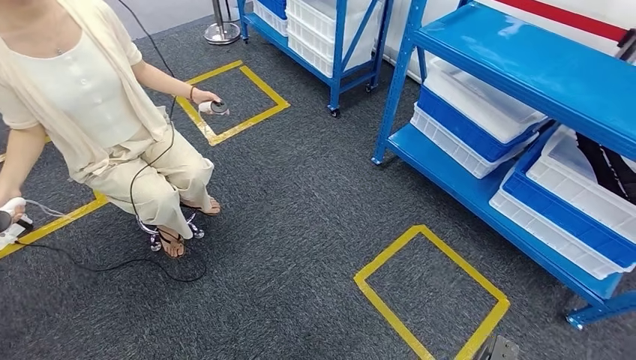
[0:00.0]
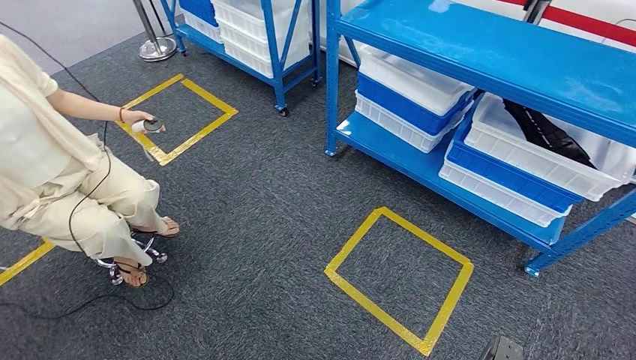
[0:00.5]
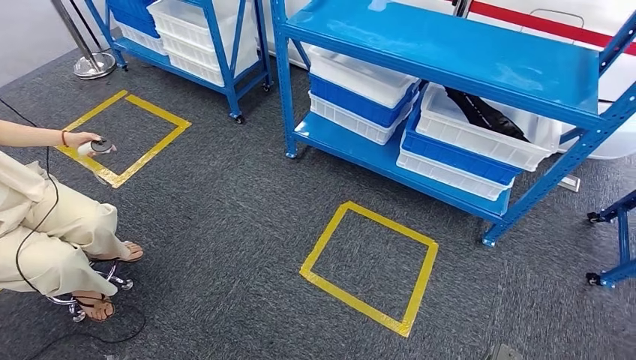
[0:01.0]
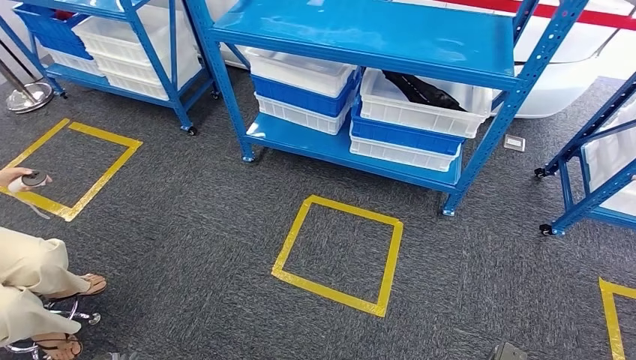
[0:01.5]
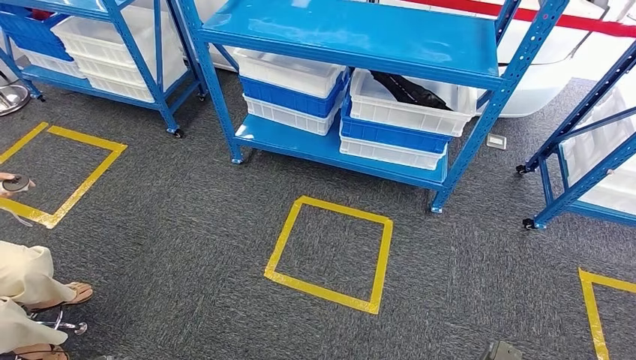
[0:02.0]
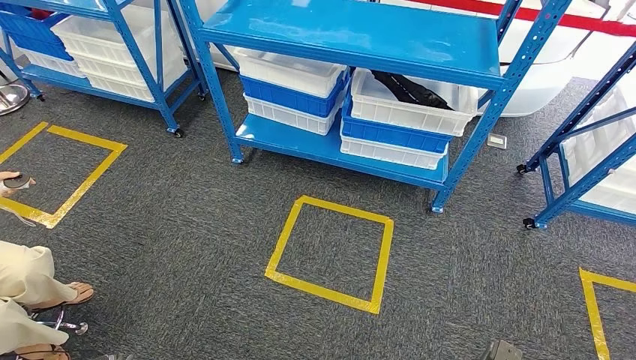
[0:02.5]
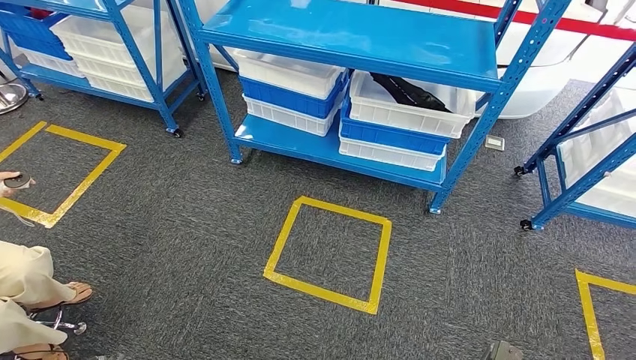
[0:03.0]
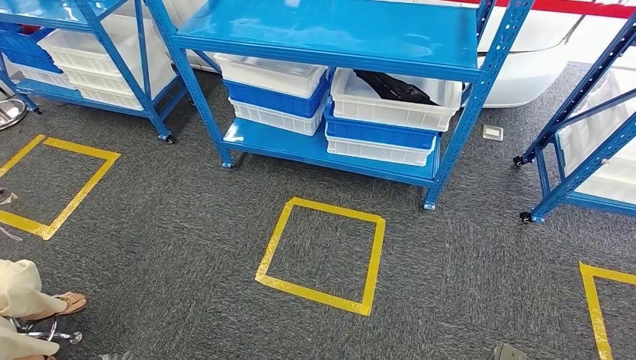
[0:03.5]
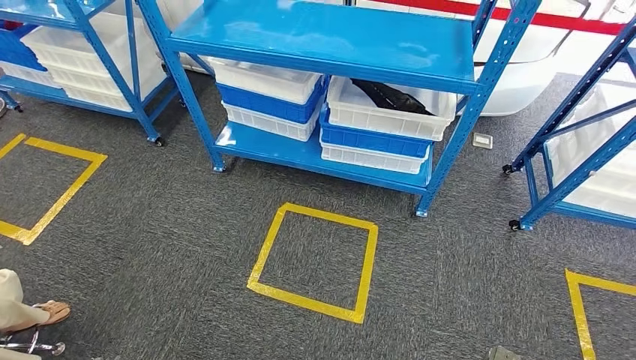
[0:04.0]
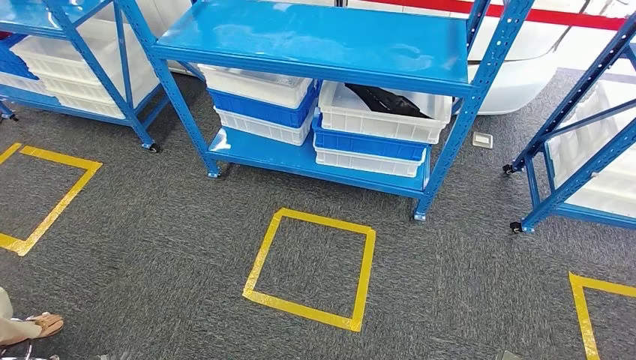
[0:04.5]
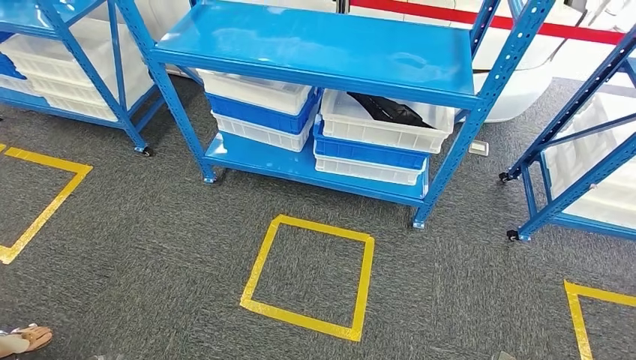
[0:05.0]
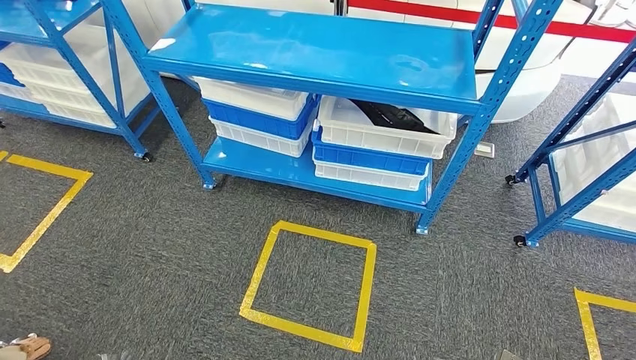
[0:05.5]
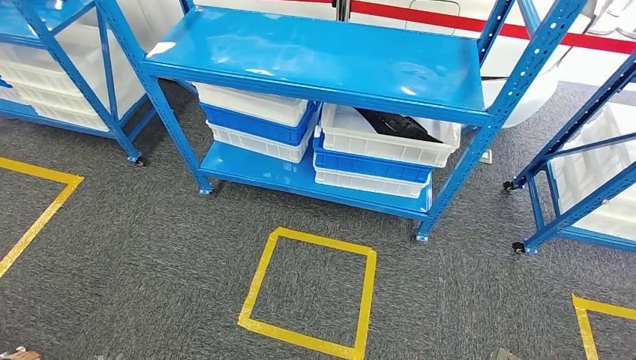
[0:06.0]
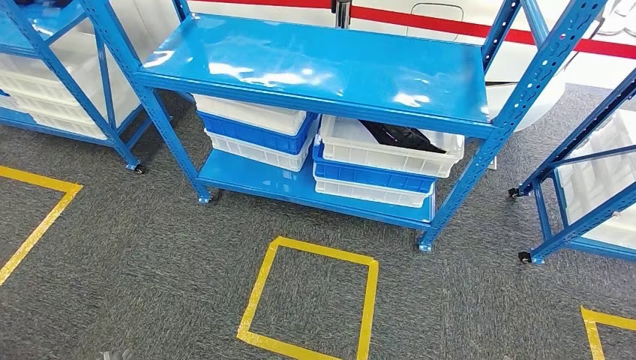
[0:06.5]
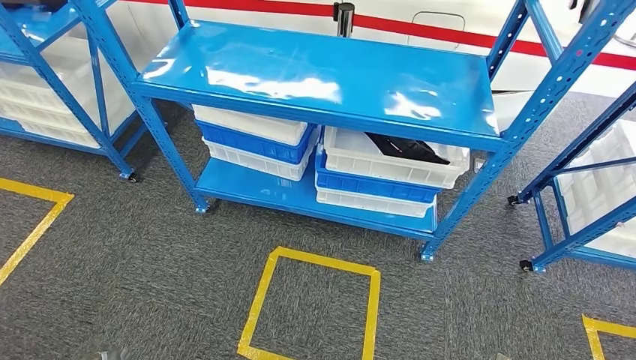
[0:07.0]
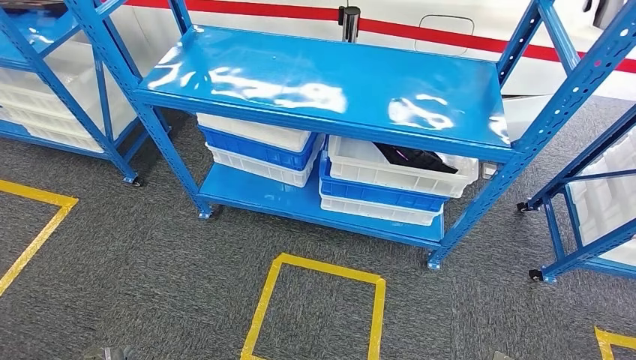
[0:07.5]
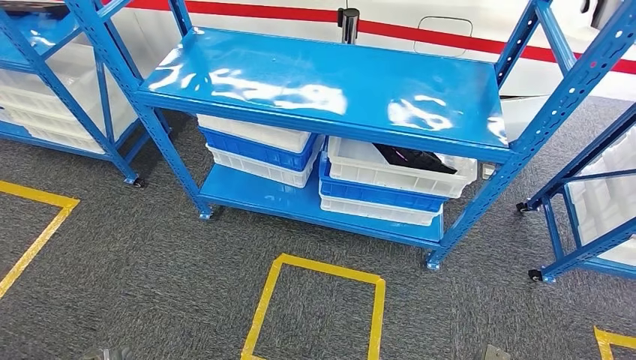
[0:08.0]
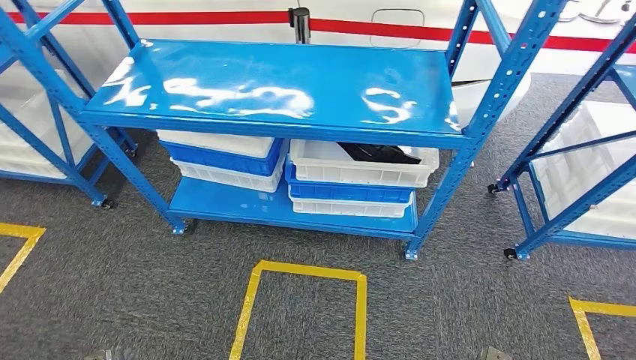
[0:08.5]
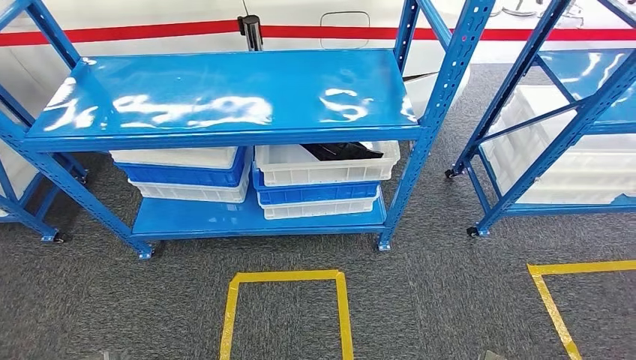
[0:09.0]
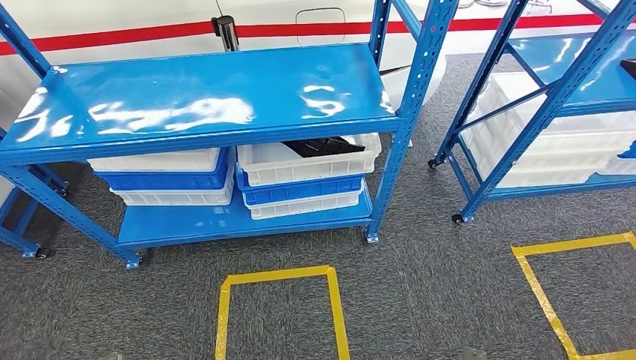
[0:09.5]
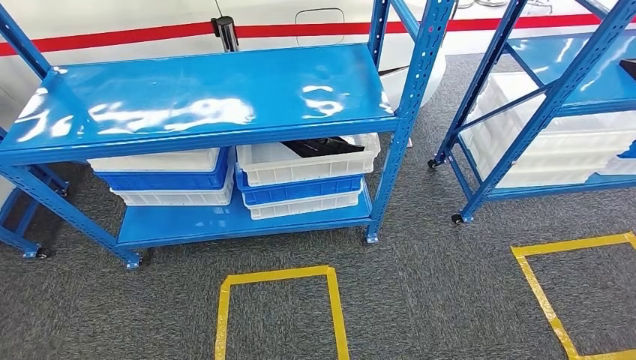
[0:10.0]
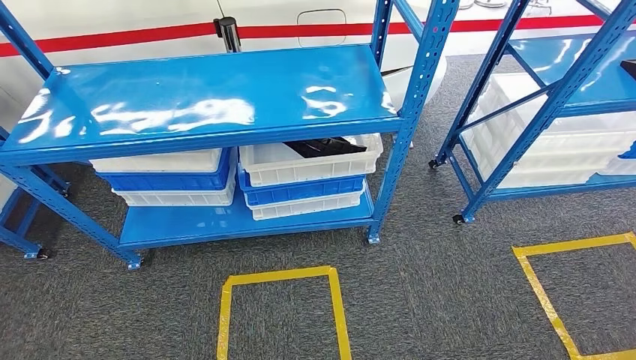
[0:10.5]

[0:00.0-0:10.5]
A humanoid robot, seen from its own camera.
Step, 0:00.0 to 0:10.5: Return to the initial position at the shelf.
